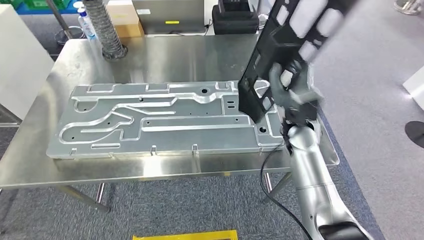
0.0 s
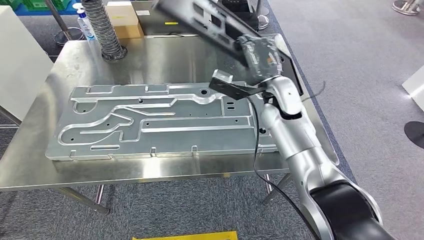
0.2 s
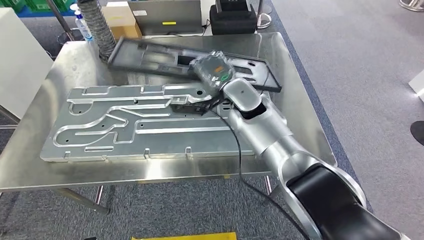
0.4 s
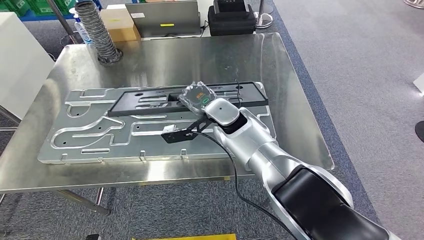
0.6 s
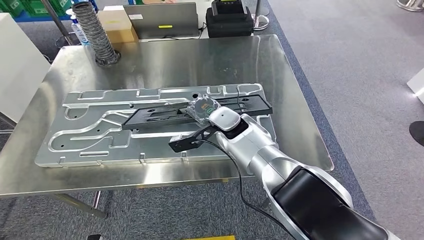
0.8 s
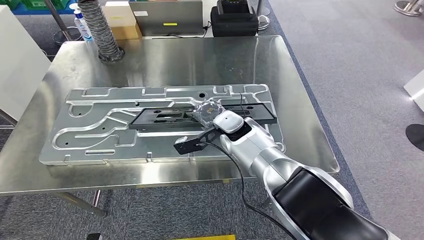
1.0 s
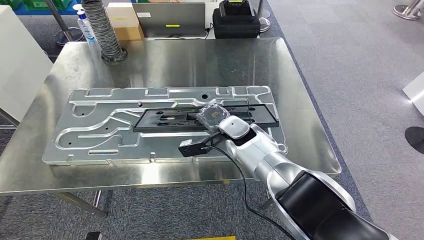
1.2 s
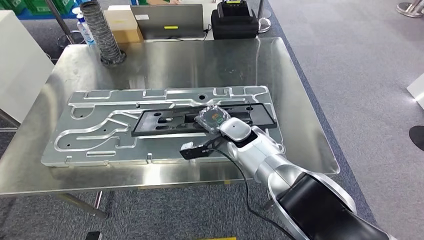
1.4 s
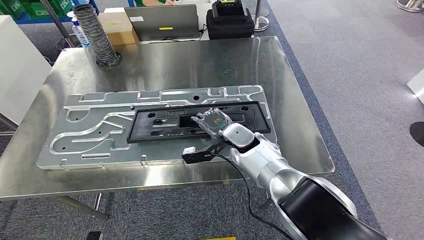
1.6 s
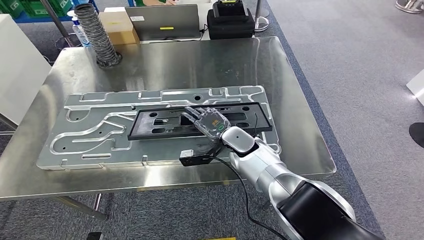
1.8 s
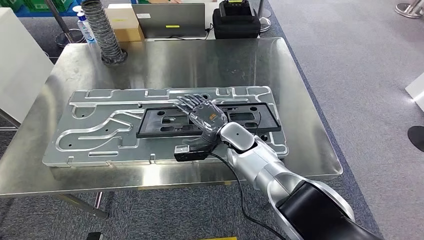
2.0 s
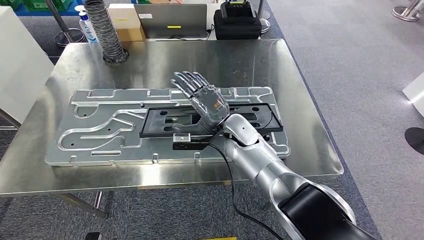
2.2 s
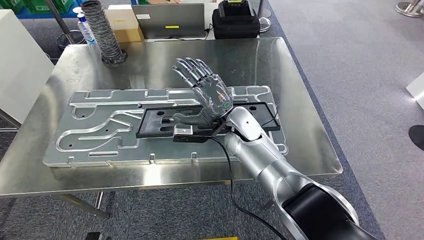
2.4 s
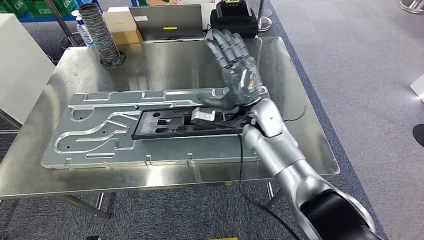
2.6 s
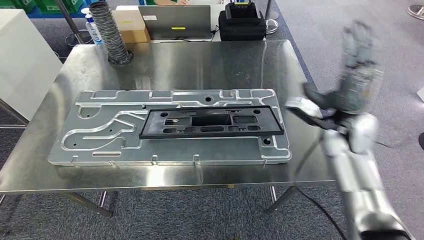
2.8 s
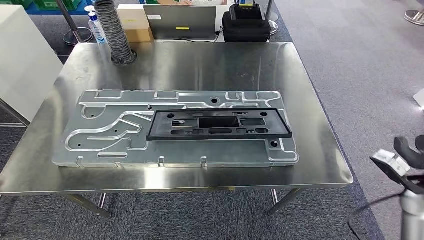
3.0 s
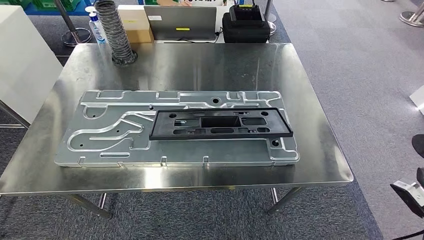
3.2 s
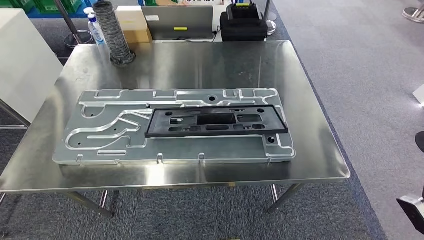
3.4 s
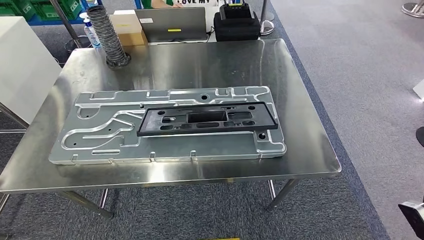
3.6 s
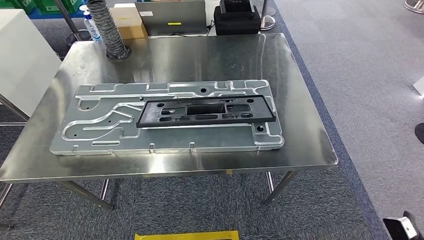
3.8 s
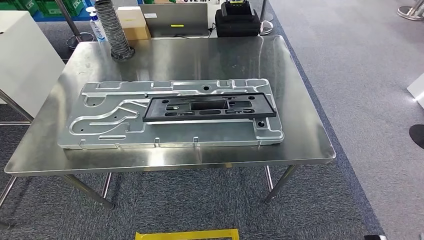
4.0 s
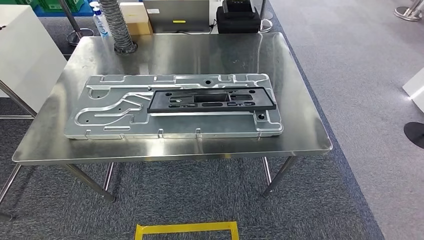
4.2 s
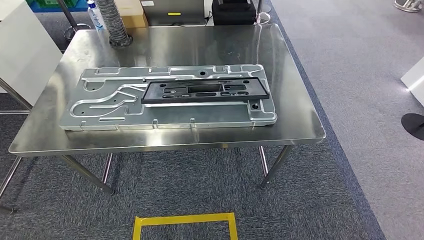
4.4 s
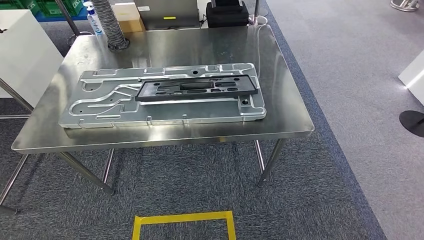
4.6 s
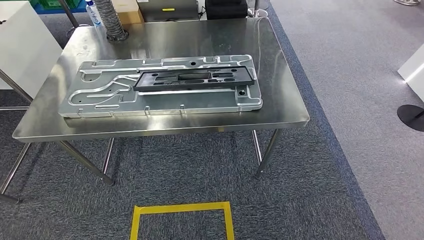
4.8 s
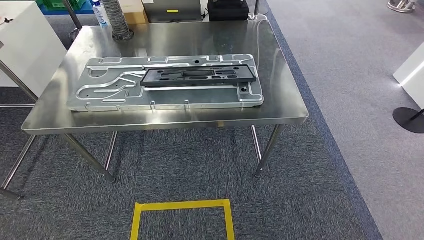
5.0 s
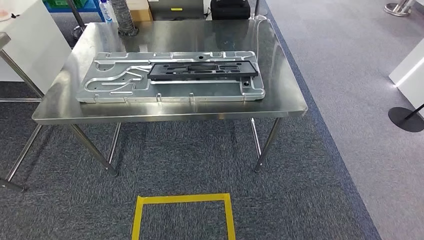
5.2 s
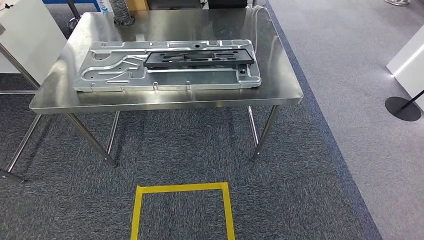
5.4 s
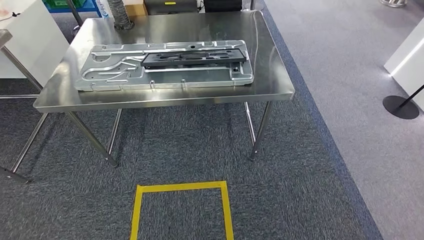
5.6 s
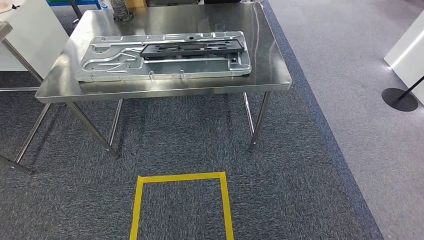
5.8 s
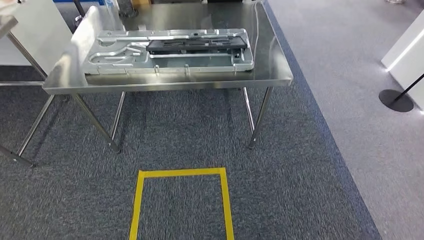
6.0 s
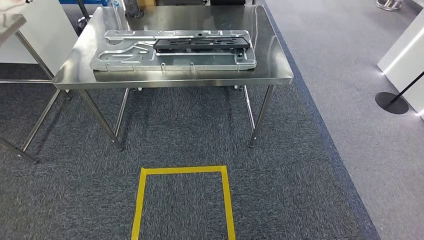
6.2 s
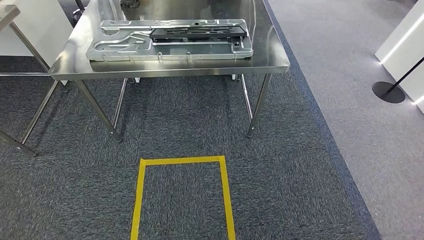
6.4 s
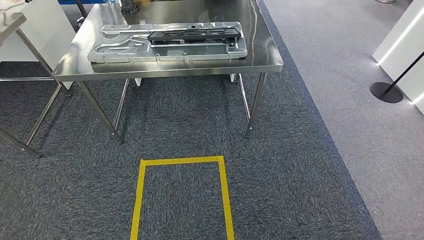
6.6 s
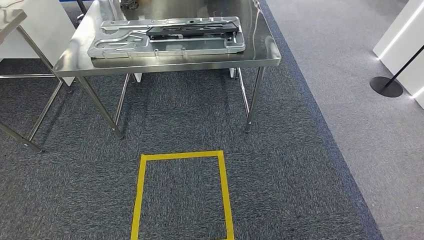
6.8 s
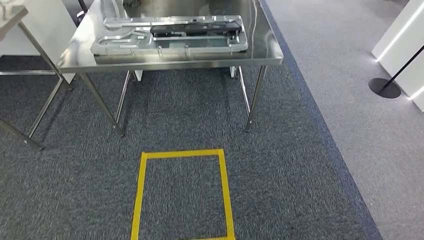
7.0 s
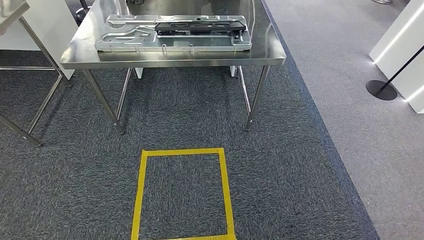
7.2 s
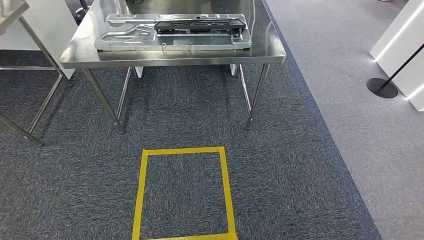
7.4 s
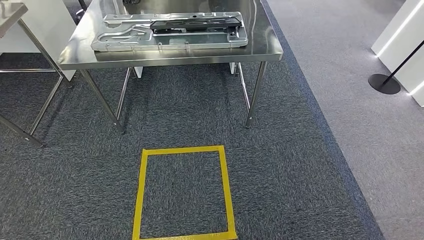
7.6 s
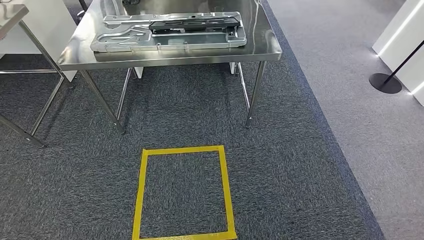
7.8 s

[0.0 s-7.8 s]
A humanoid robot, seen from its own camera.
Step, 0.0 to 1.6 s: Insert the large material into the corresponding slot on the workbench.
Step, 2.8 to 7.6 s: Move to the initial position of the shelf.
